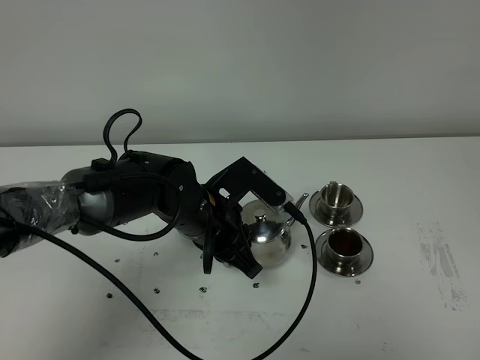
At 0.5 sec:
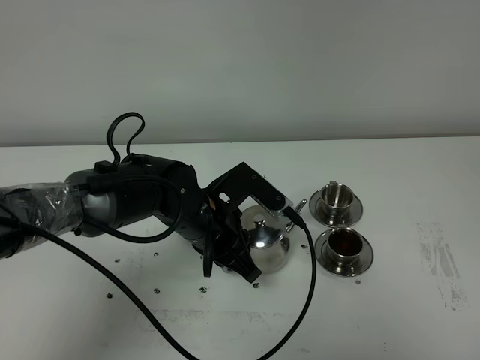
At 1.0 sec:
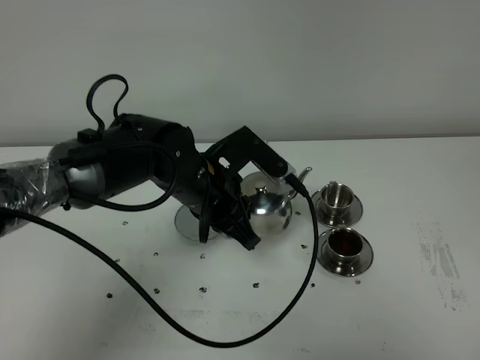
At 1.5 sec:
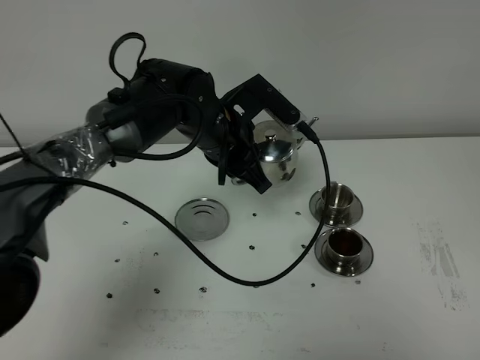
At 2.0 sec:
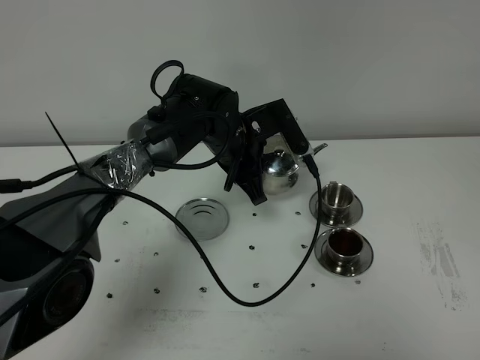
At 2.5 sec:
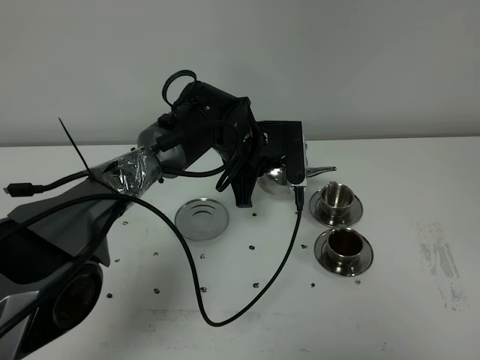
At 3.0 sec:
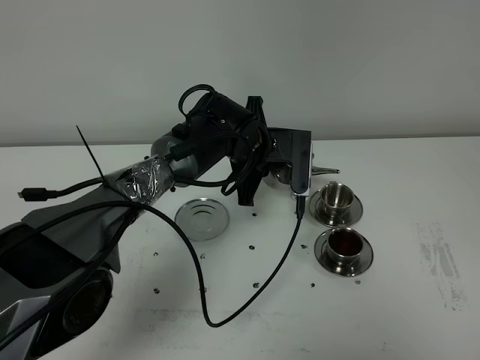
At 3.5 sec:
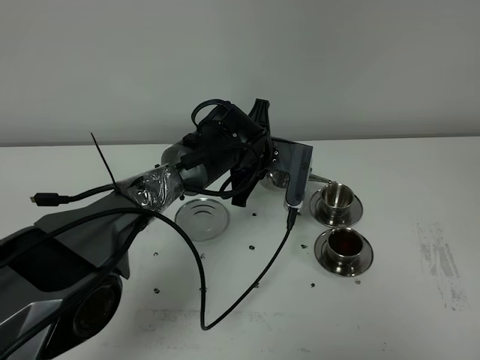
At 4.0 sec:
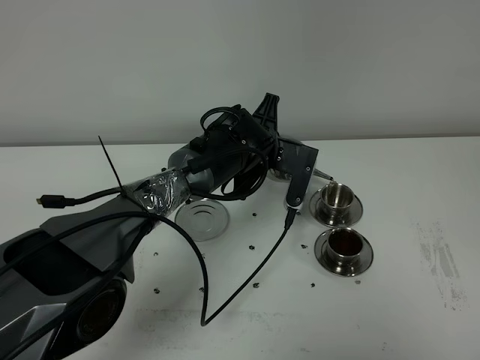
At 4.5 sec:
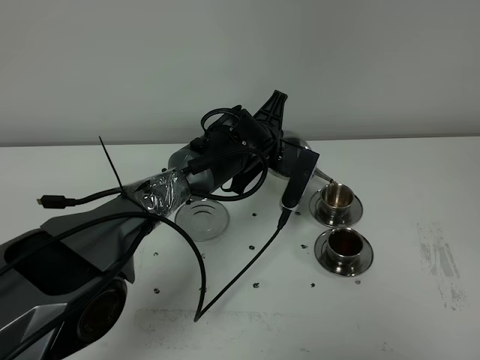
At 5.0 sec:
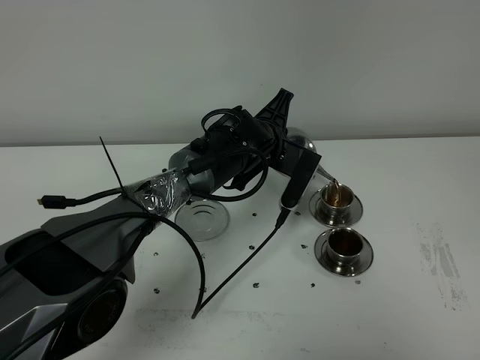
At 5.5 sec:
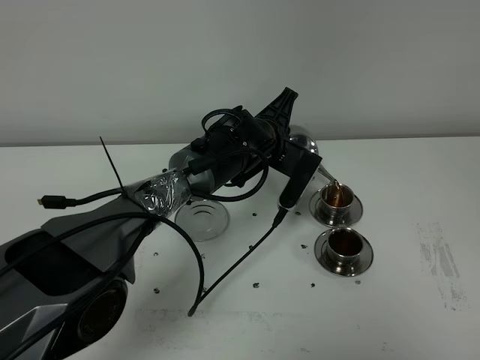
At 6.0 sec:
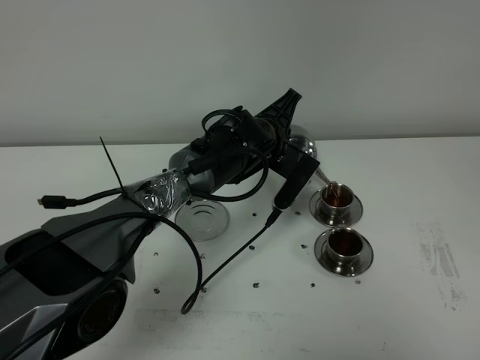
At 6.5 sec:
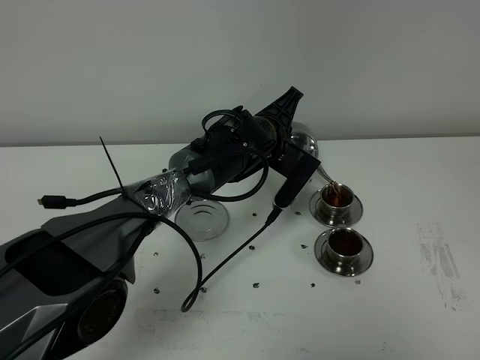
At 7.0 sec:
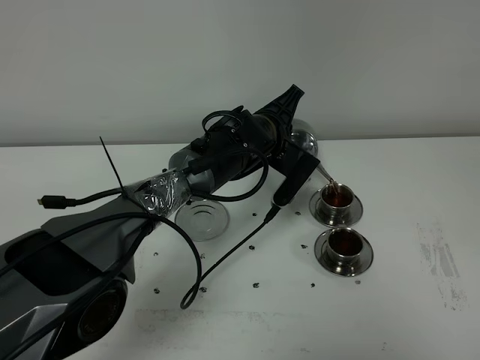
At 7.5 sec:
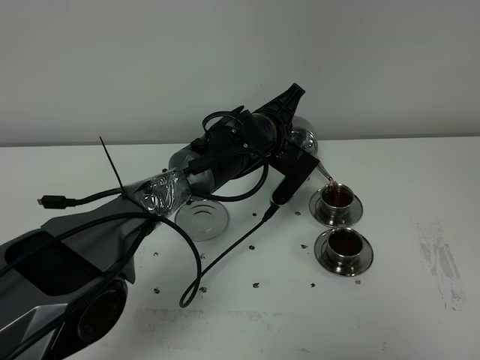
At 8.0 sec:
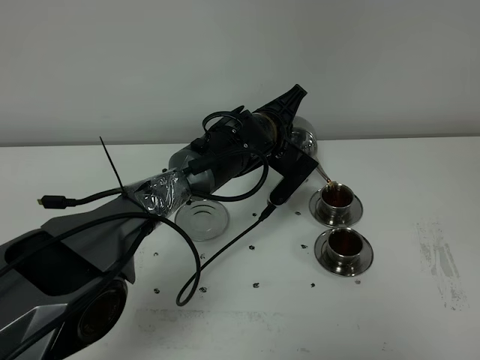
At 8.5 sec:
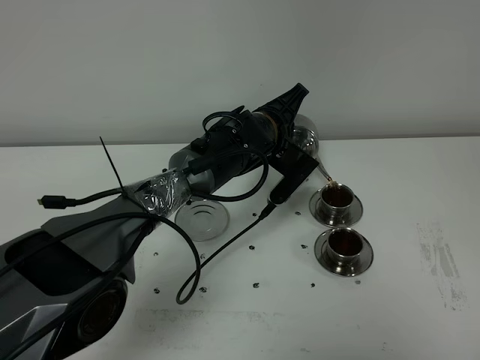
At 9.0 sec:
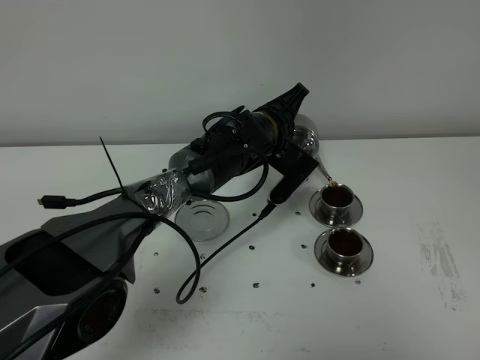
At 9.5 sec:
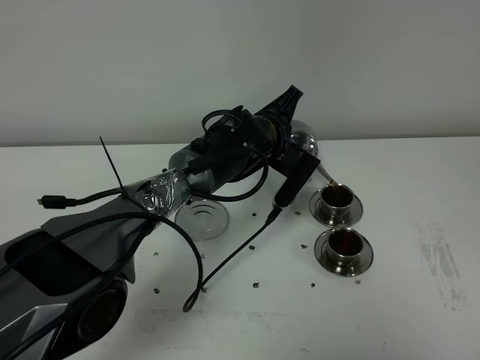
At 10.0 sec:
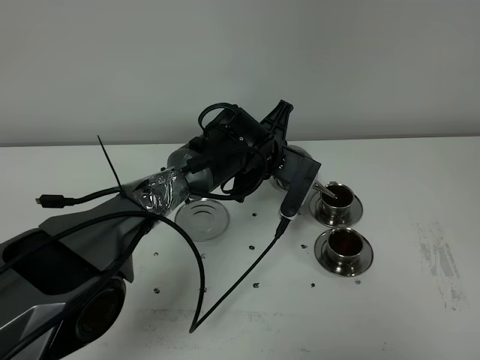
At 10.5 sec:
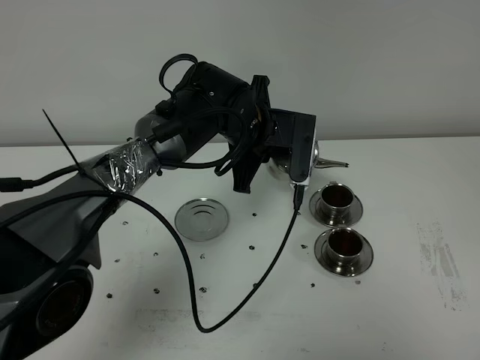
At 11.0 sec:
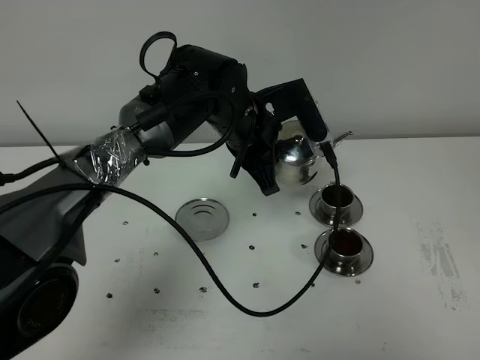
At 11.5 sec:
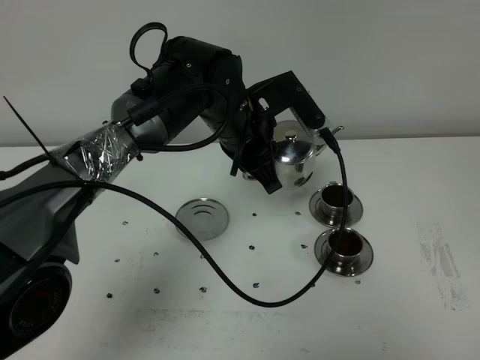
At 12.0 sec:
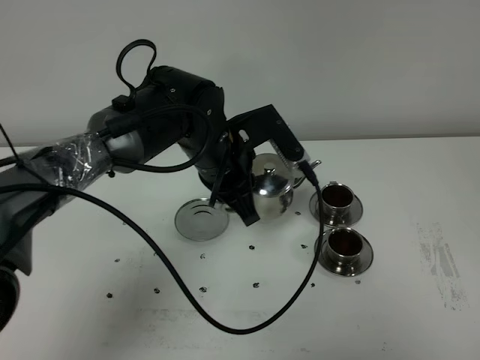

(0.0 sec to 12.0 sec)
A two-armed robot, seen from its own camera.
Task of the whole recording: grasp the stainless steel teapot and pour the tea into the two stainless steel teacups one by one, put the stainless steel teapot back in its original place.
Step, 0.0 sec - 10.0 sec: Pour tea into the teacup with the left gripper.
0.0 sec - 2.0 sec: The left gripper is displaced forward by about 10 cm.
4.0 sec - 6.0 sec: The grippers move only a little.
6.0 sec - 8.0 sec: The grippers stay close to where they were, moving slightly.
10.0 sec - 12.0 sec: The left gripper goes approximately 10 cm backward, upward and to the left.

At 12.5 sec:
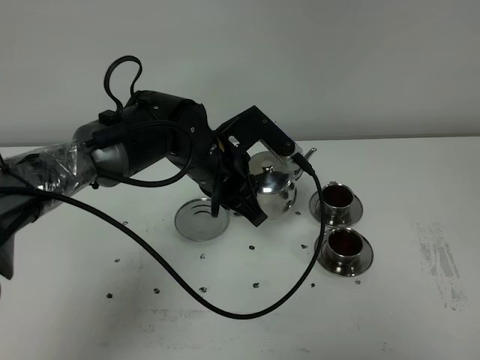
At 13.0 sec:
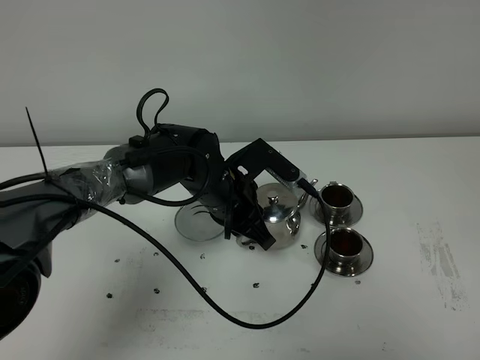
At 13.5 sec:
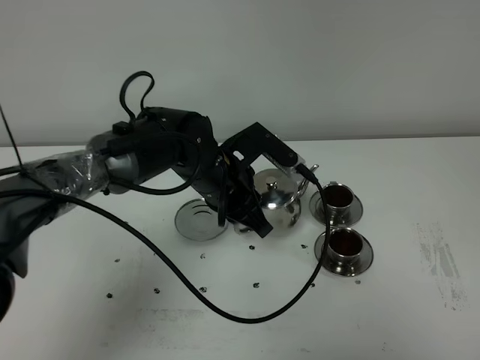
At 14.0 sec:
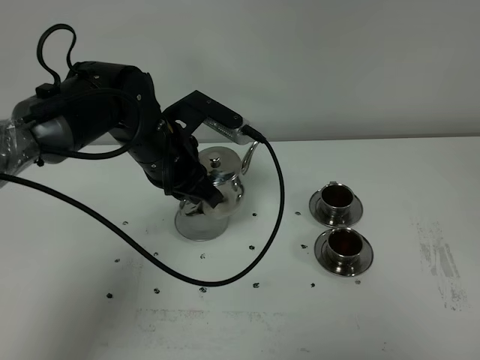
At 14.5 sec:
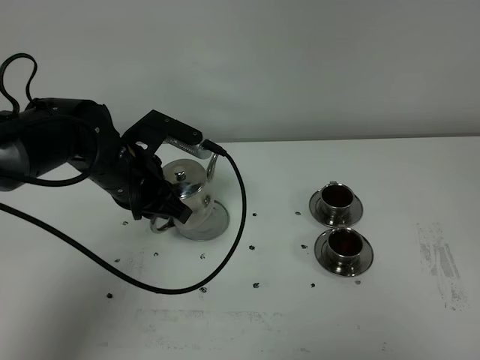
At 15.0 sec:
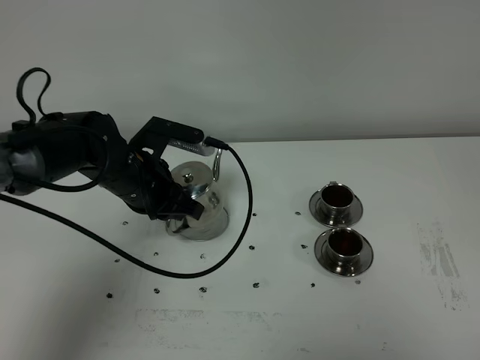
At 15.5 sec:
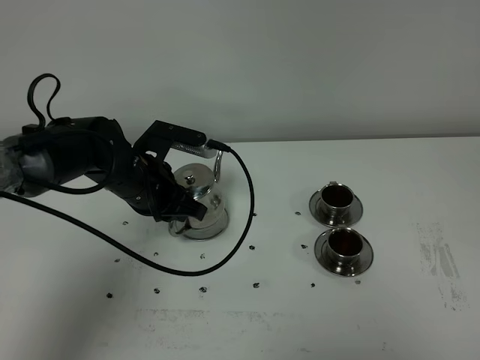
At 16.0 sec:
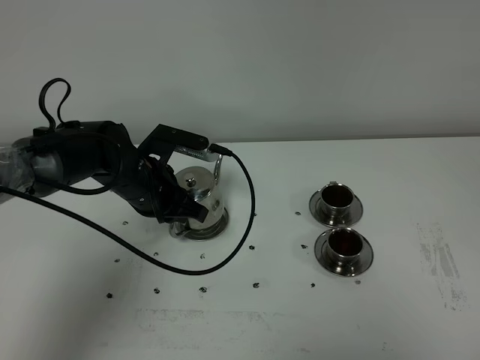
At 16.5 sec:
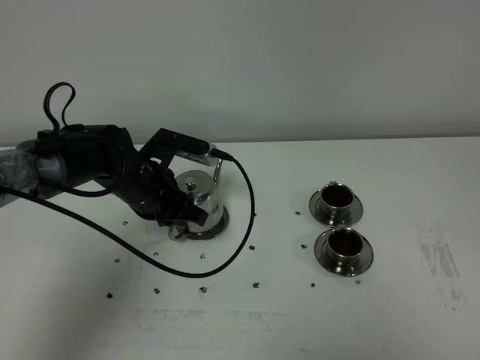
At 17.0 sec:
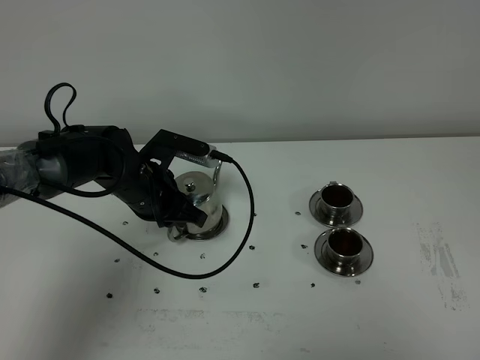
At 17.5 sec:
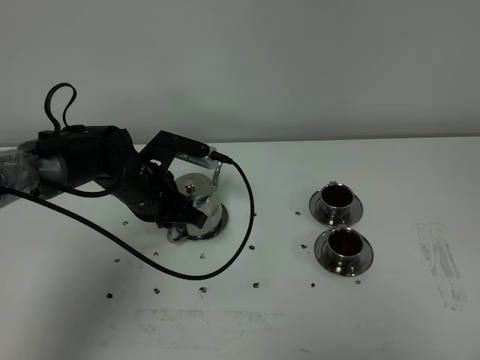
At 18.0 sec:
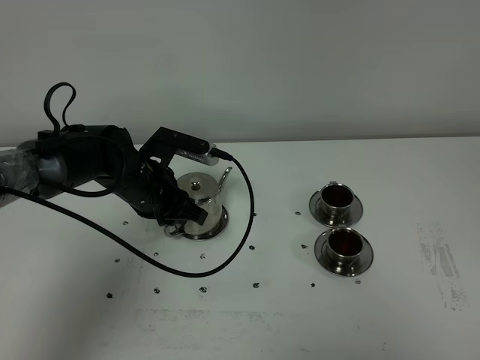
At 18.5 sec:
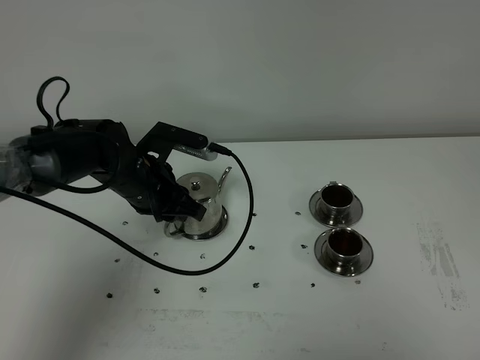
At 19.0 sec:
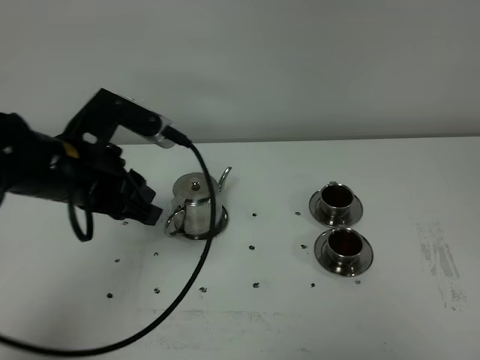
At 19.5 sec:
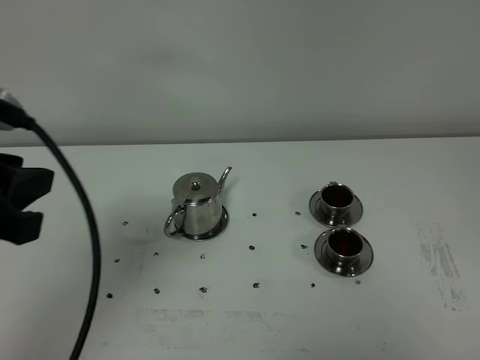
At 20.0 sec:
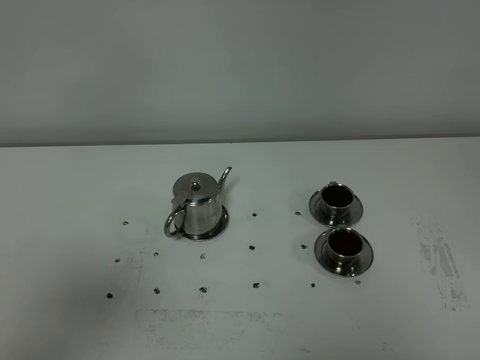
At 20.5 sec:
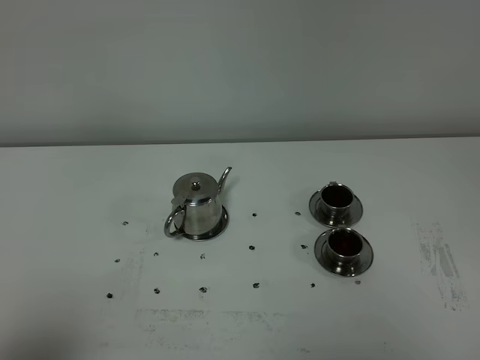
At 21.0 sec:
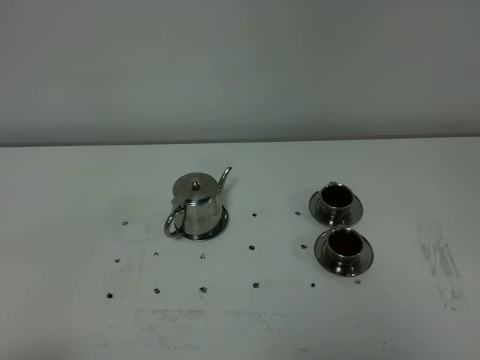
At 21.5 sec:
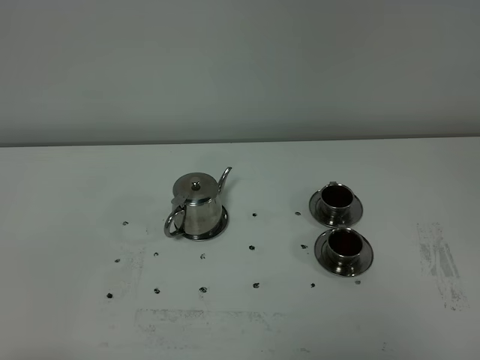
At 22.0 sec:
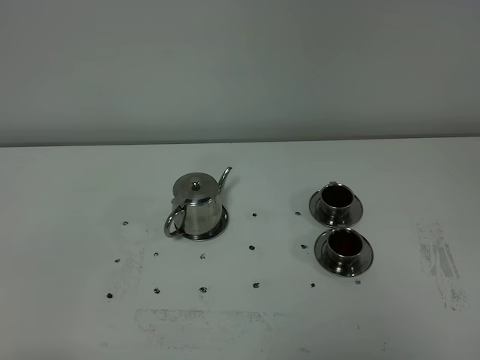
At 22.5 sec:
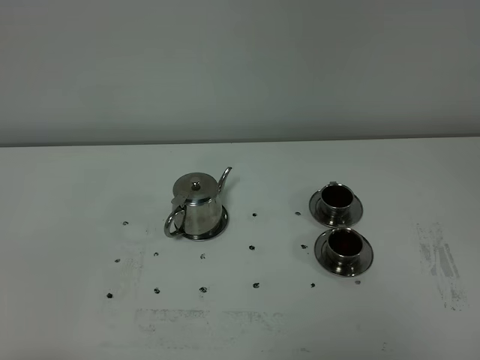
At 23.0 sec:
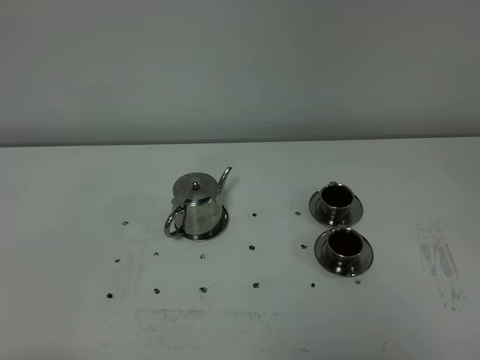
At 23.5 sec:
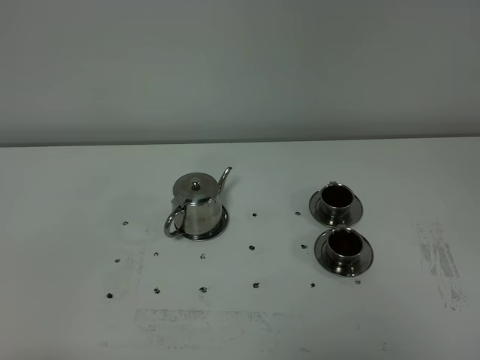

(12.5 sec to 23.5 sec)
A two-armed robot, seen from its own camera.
Task of the whole recording: grasp the stainless steel teapot and pour the tea into the two stainless steel teacups one by one, put the stainless steel teapot back in its original place.
12.5 sec - 14.5 sec: The left gripper shifts about 10 cm to the left.
14.5 sec - 16.0 sec: The left gripper moves roughly 5 cm.
16.0 sec - 18.0 sec: Both grippers stay about where they are.
18.0 sec - 20.0 sec: The left gripper is displaced backward and upward by approximately 40 cm.
20.0 sec - 21.5 sec: The left gripper goes approximately 20 cm downward and backward.
21.5 sec - 23.5 sec: Both grippers stay put.

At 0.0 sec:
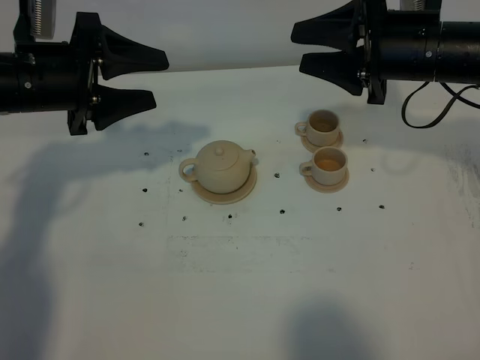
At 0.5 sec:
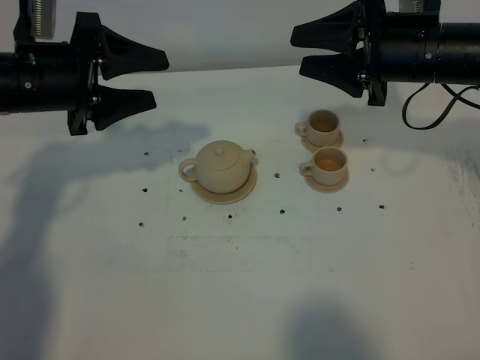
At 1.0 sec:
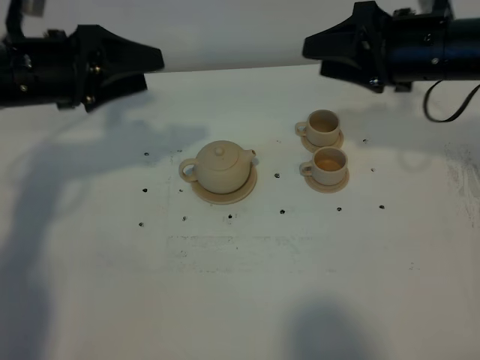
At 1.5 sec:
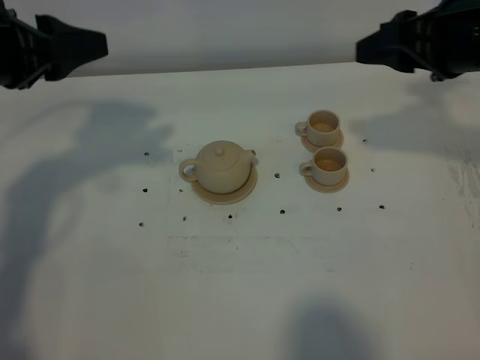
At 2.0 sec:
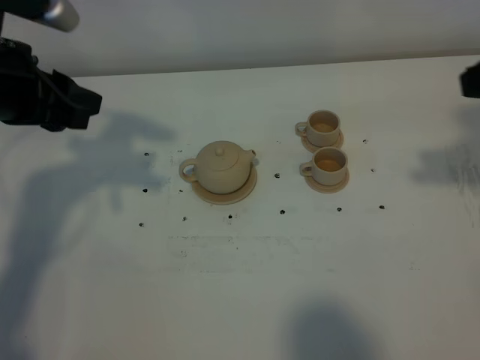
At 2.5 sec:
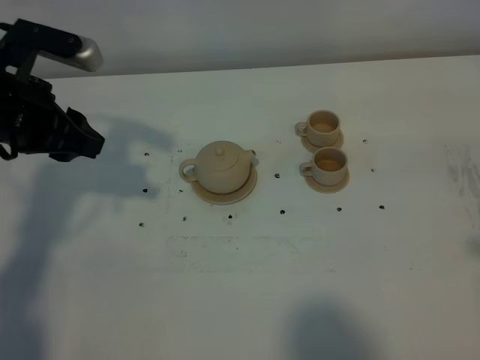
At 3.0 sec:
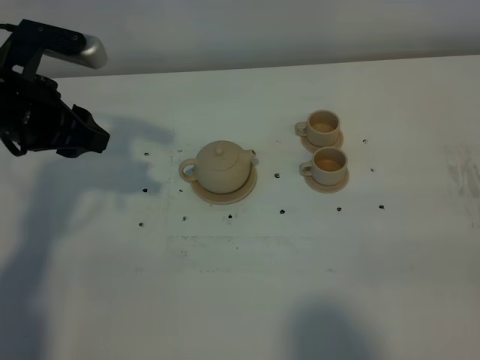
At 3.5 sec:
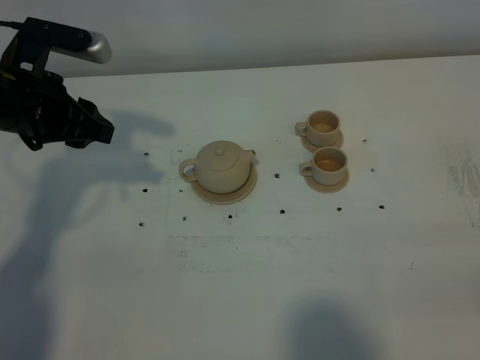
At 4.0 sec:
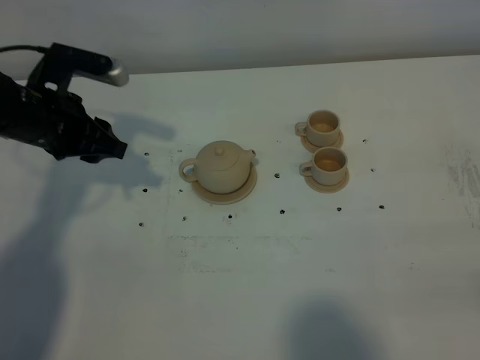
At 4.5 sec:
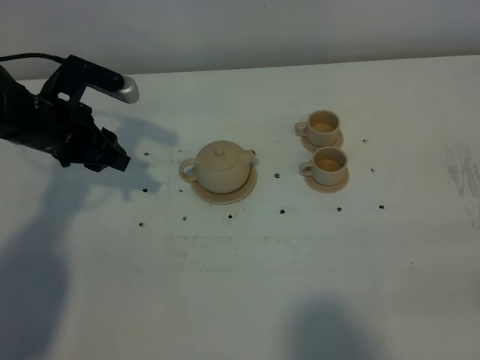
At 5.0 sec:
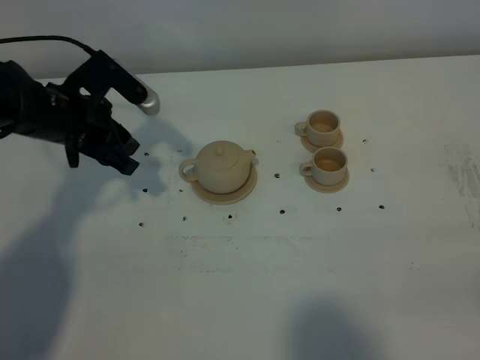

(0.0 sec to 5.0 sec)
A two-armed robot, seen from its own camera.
Task of the whole recording: grasp the brown teapot and pour the tea into the two brown teacups one by one, put the brown teapot back in its original place.
0.0 sec - 2.5 sec: The right gripper moves backward and upward, some 30 cm.
2.5 sec - 5.0 sec: The left gripper travels downward and forward by some 10 cm.
